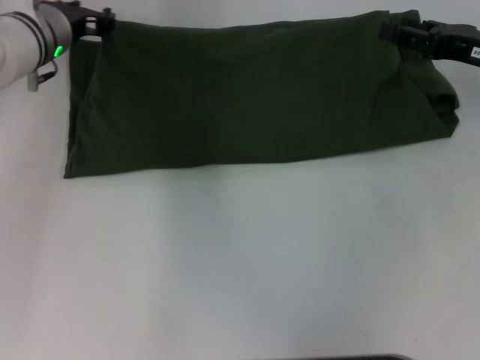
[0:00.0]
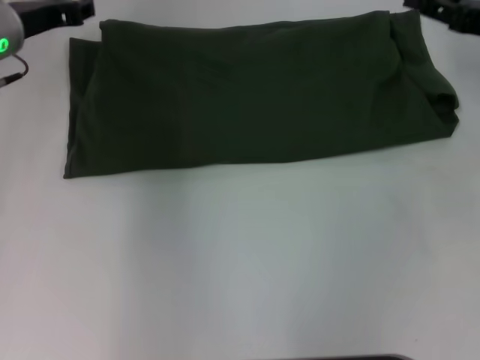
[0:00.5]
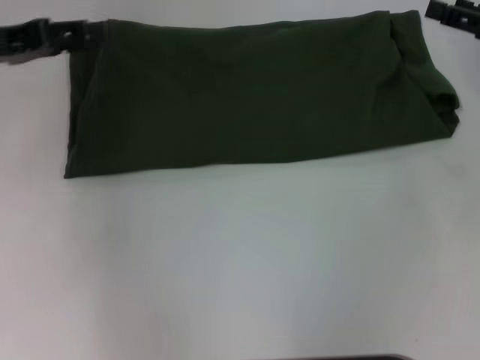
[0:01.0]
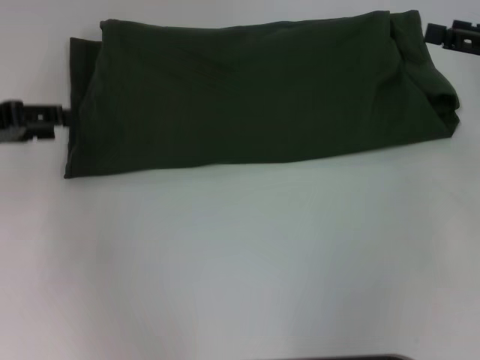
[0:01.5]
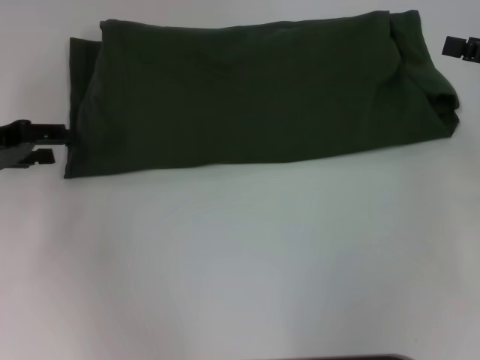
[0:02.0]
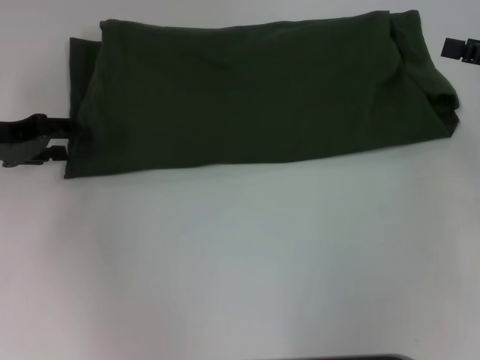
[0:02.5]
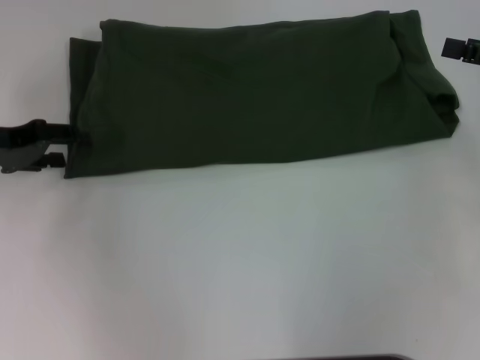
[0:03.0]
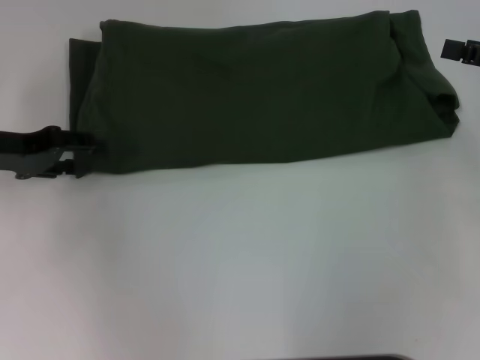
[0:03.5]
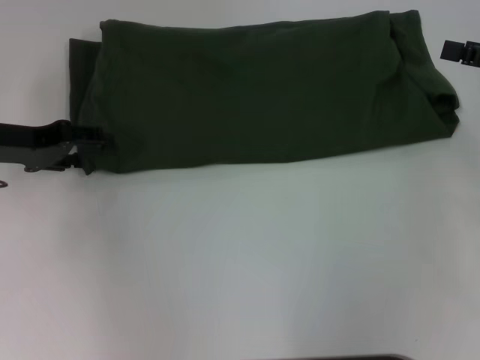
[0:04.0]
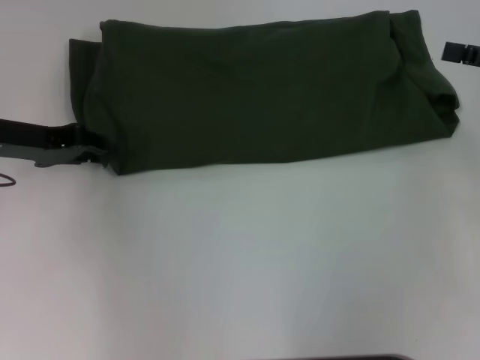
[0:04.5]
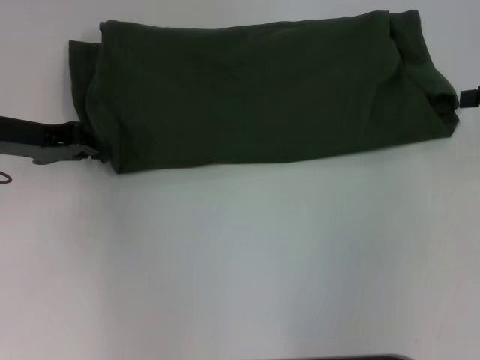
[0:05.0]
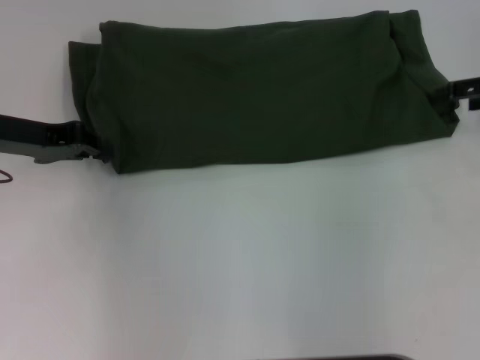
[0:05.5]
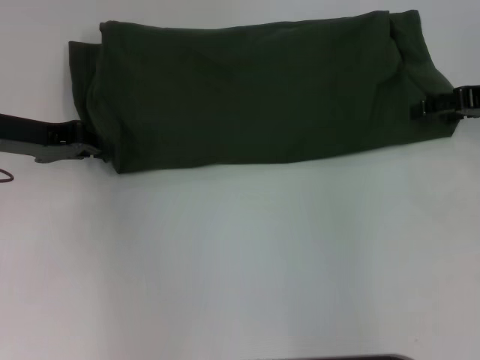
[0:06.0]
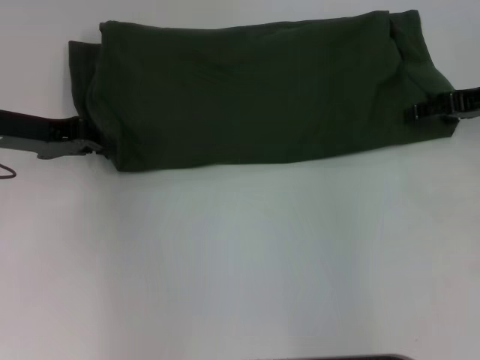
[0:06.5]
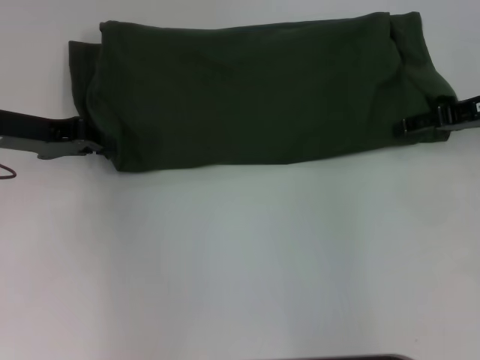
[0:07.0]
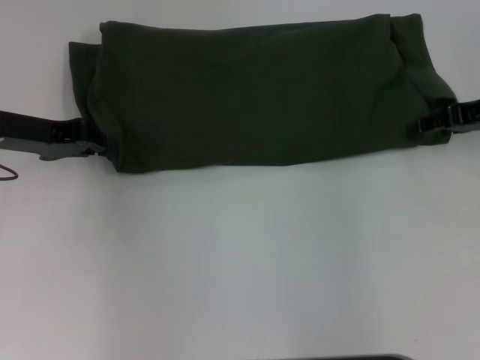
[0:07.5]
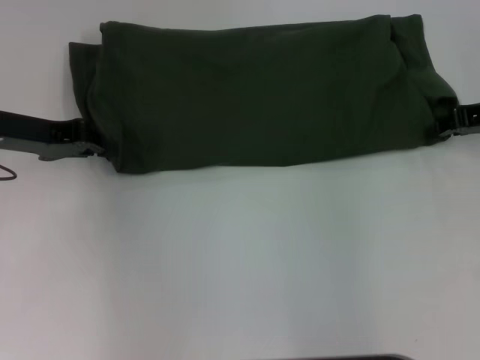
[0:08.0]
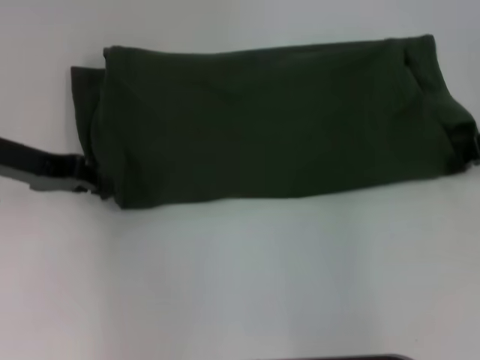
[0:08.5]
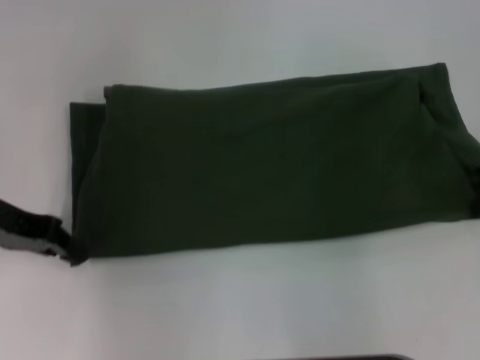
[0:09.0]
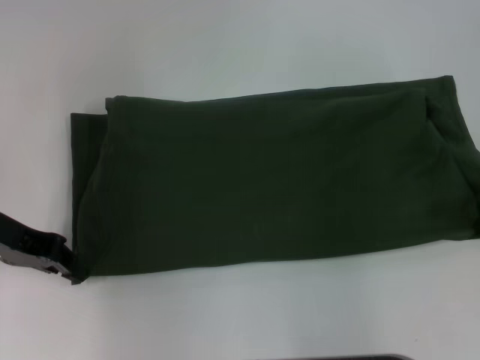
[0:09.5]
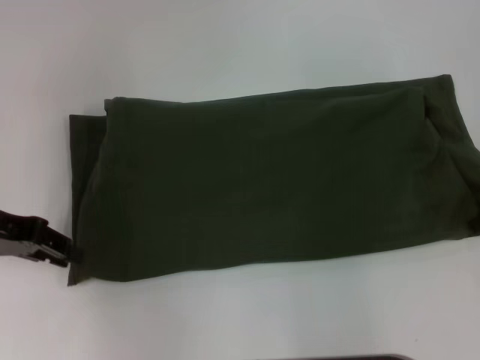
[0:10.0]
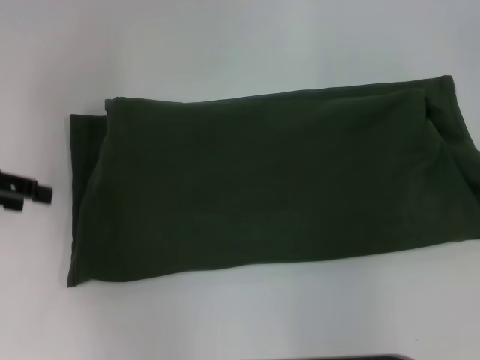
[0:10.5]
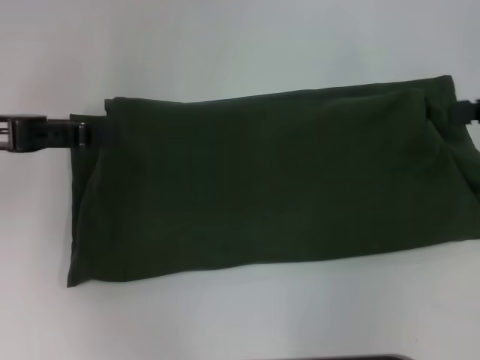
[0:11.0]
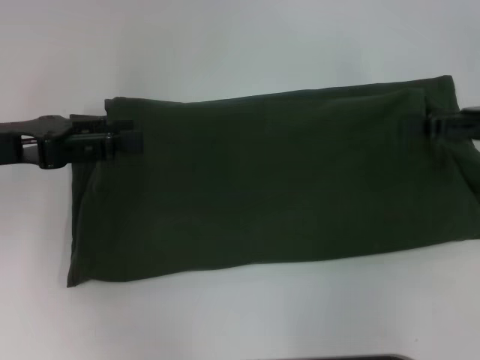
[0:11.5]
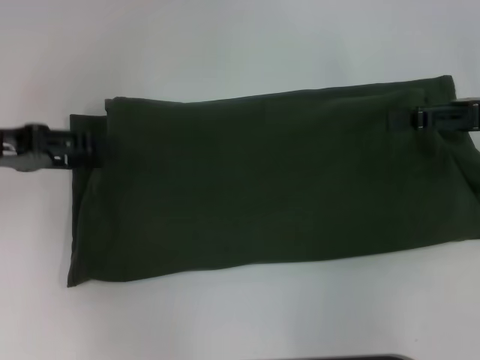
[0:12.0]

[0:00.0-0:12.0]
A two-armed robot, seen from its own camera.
Step, 0.0 to 10.5 s: Pull the clothes with your left hand.
Step, 0.0 to 10.5 s: Pull the clothes with your right hand.
0.0 to 2.0 s: The left gripper moves to the left and backward, about 20 cm. Meanwhile the right gripper shifts roughly 5 cm to the right, and opens.
2.0 to 4.0 s: The grippers move only a little.
4.0 to 6.0 s: The left gripper closes, while the right gripper travels forward by about 5 cm.
6.0 to 8.0 s: The right gripper closes.
8.0 to 10.0 s: The left gripper is displaced backward by roughly 5 cm.
10.0 to 12.0 s: The right gripper opens up. The left gripper opens up.

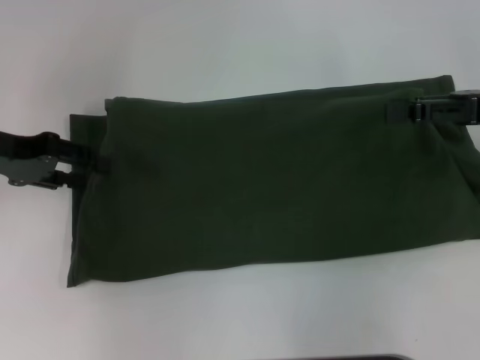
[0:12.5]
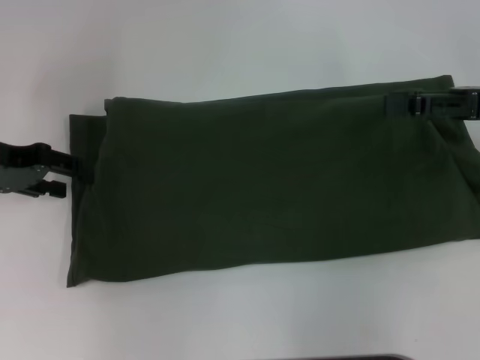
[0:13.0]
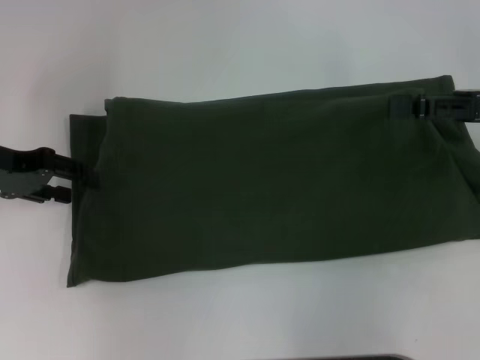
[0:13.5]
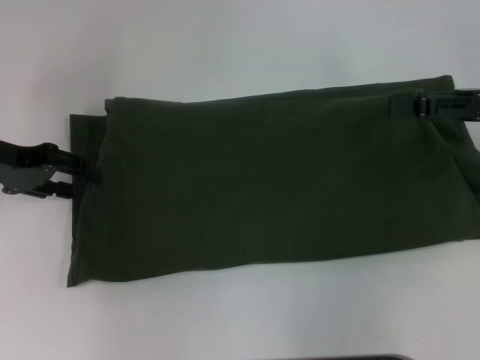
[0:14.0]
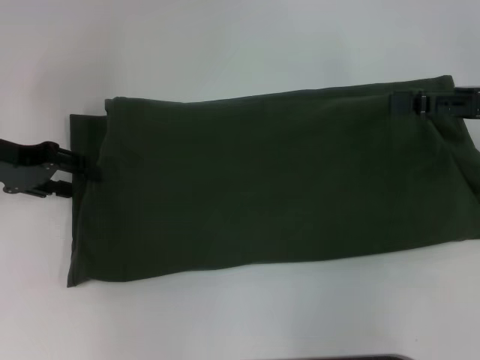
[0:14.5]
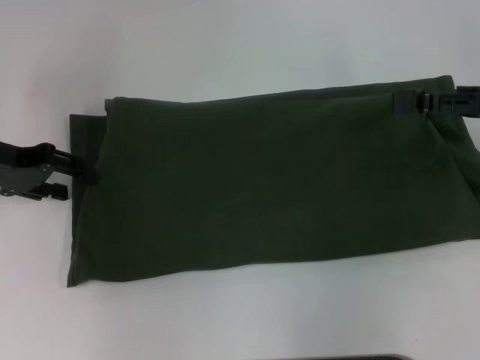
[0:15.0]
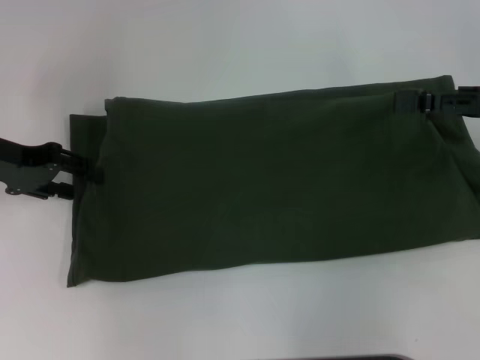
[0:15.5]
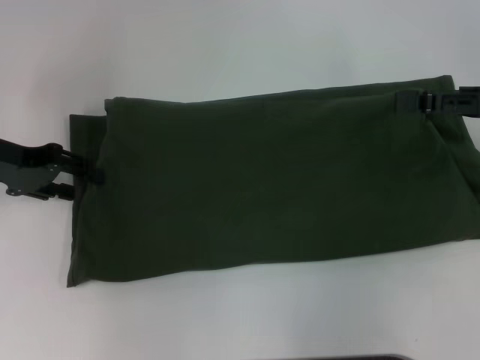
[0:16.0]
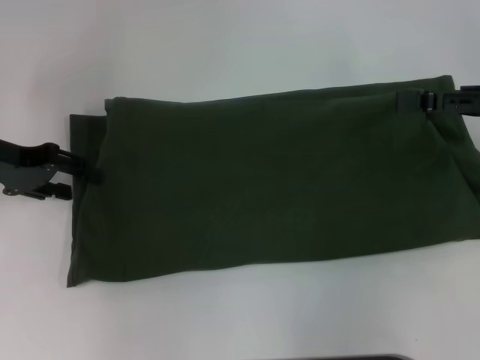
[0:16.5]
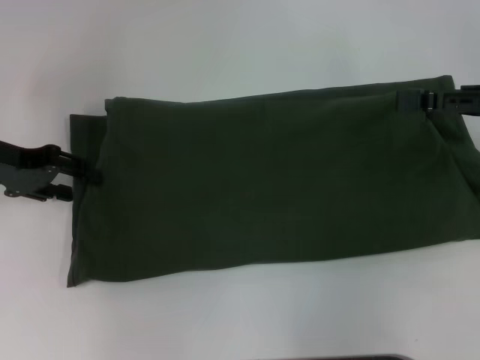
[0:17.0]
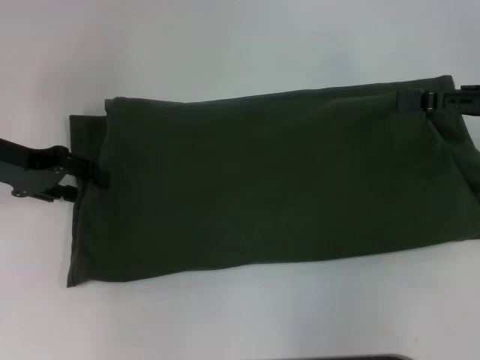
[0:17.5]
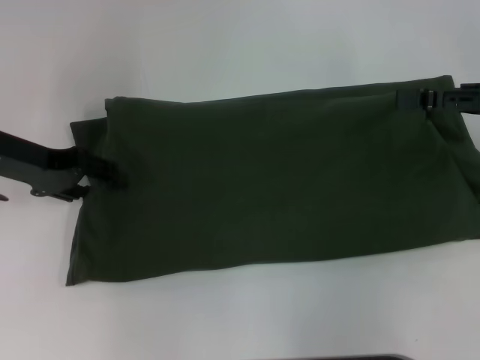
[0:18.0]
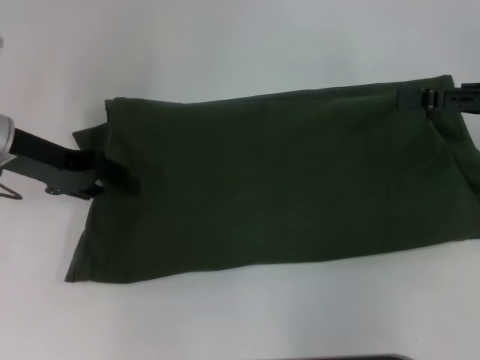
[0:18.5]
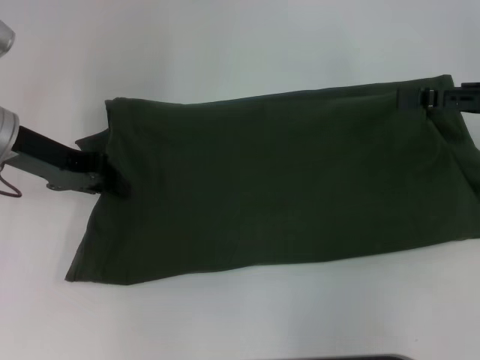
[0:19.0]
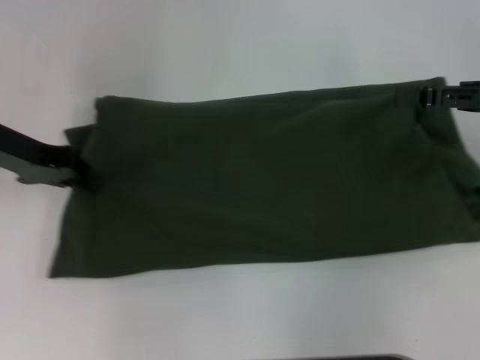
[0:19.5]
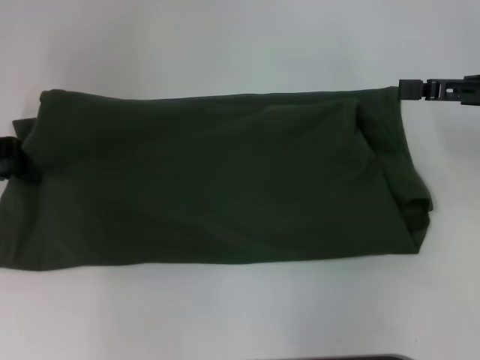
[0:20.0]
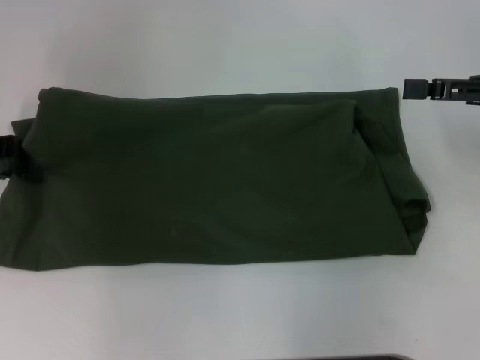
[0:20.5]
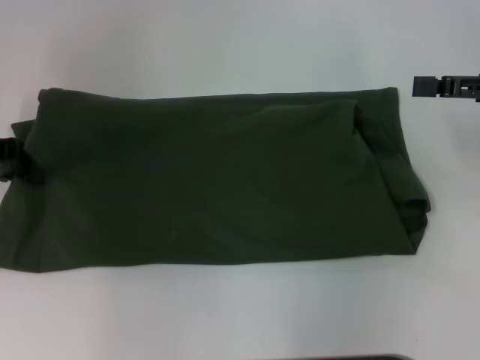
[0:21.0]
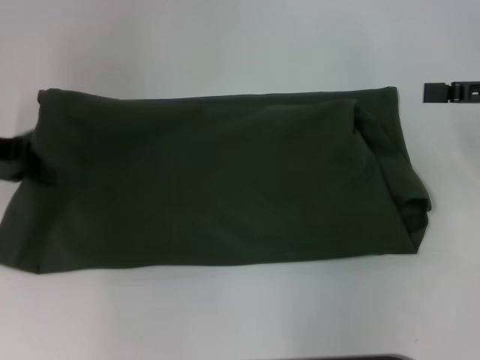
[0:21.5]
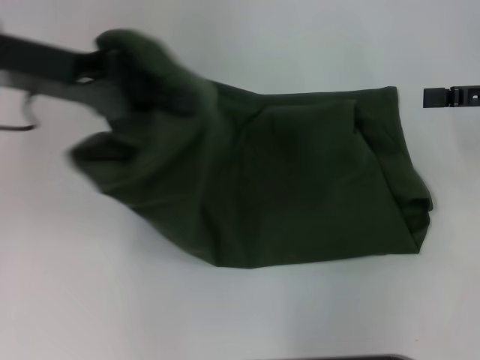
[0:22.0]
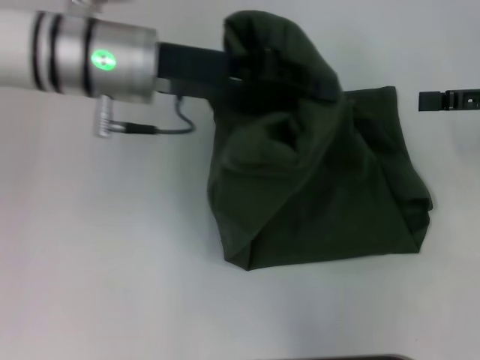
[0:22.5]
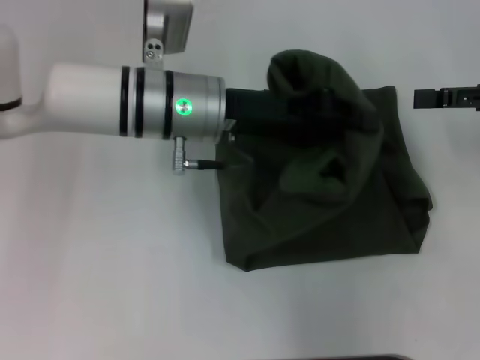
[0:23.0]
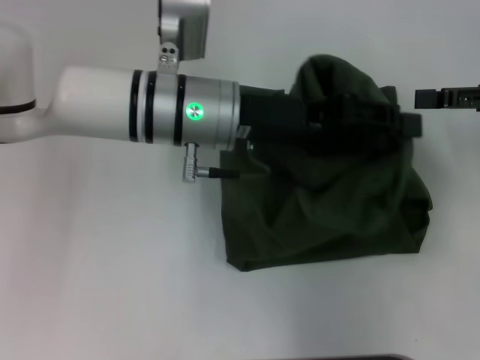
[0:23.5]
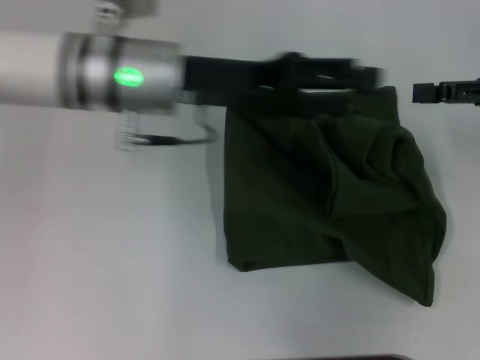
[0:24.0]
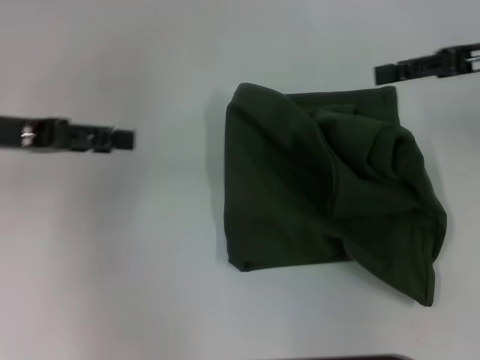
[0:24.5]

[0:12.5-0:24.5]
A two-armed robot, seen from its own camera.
Step, 12.5 to 24.0 s: Fold the clothes with your left hand.
12.5 to 14.5 s: The grippers move only a little.
14.5 to 16.5 s: Both grippers stay put.
16.5 to 18.5 s: The grippers move only a little.
18.5 to 20.5 s: The left gripper moves to the left, approximately 5 cm, and closes up.
20.5 to 22.5 s: The left gripper shifts approximately 20 cm to the right.
22.5 to 24.5 s: The left gripper travels to the left by roughly 15 cm, and opens; the right gripper changes place by approximately 5 cm.

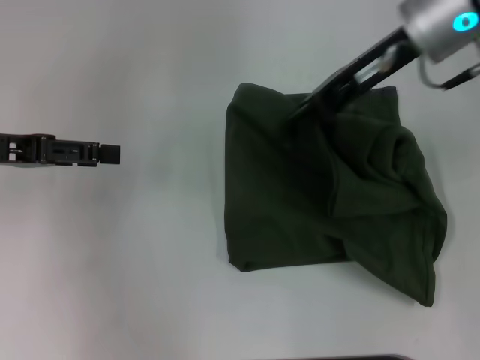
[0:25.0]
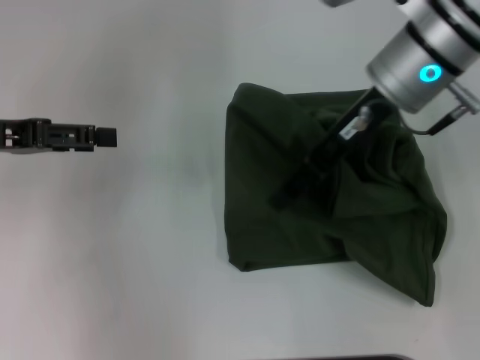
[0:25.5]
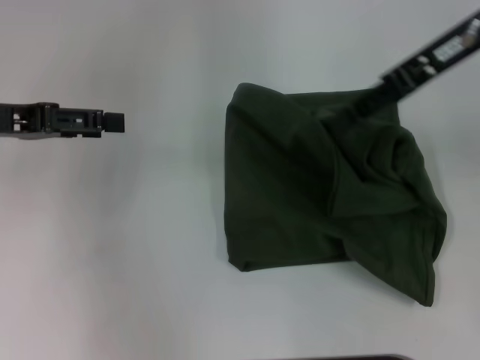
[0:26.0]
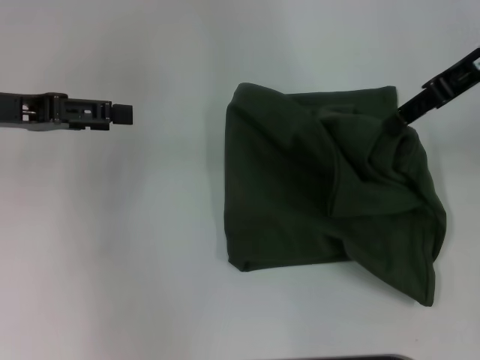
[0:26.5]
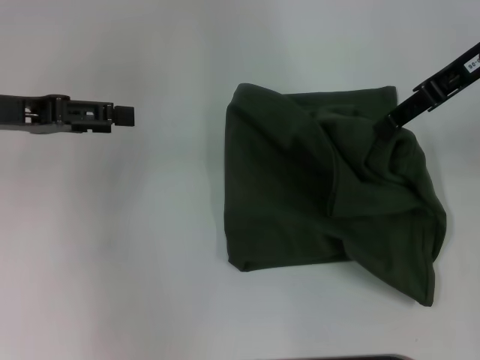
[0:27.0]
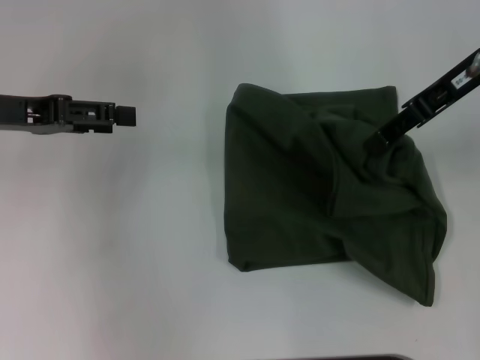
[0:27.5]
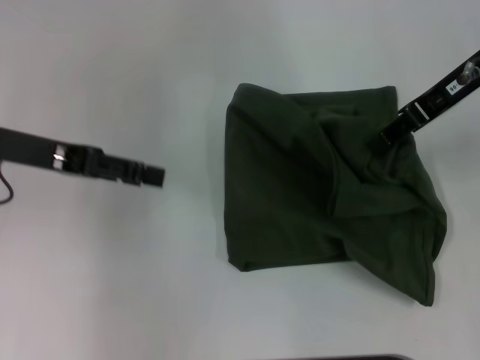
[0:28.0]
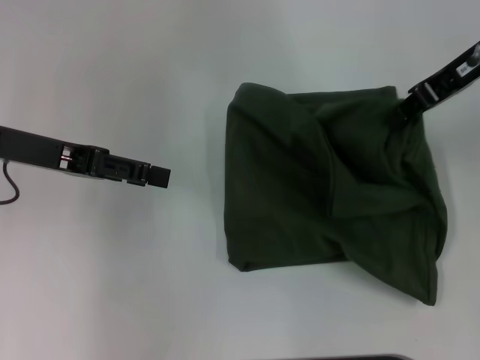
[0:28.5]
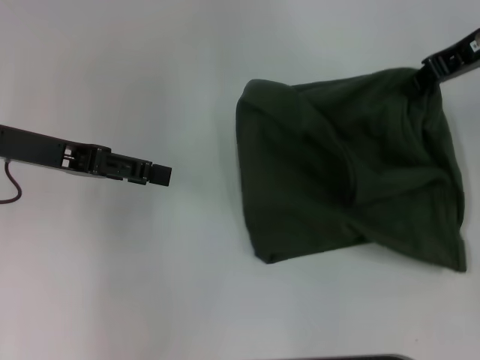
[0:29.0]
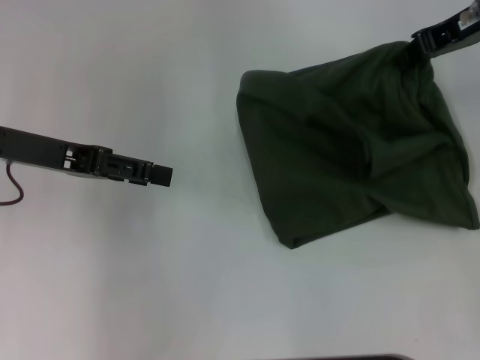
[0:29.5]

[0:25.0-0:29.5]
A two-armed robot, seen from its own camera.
25.0 to 27.0 s: The right gripper is displaced to the right by some 10 cm.
27.0 to 29.5 s: The right gripper closes up.
